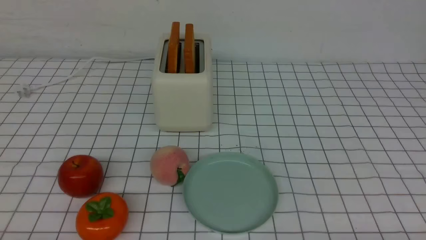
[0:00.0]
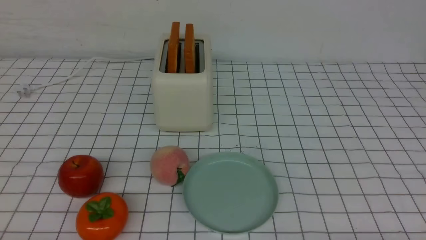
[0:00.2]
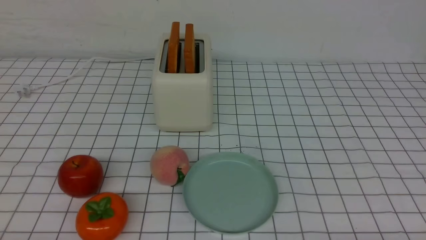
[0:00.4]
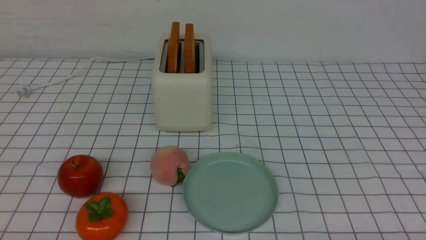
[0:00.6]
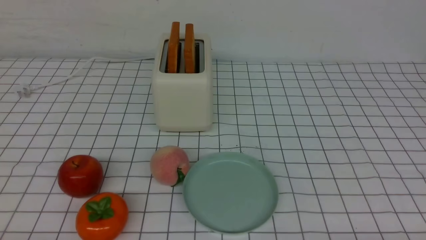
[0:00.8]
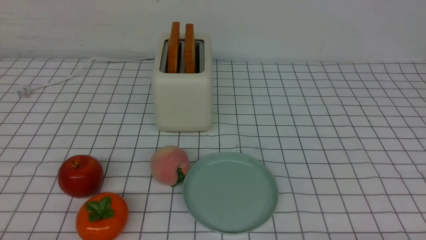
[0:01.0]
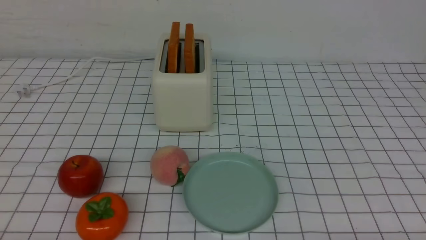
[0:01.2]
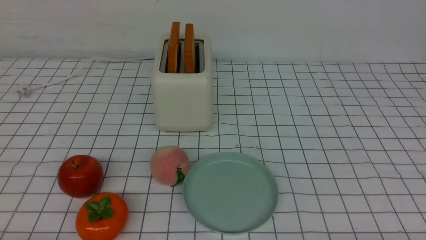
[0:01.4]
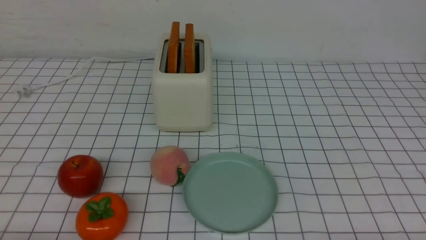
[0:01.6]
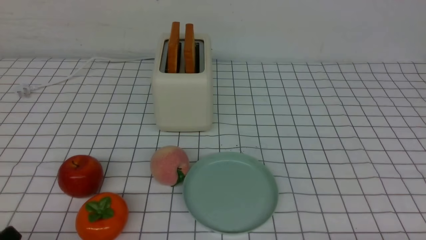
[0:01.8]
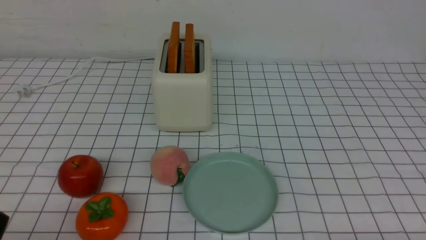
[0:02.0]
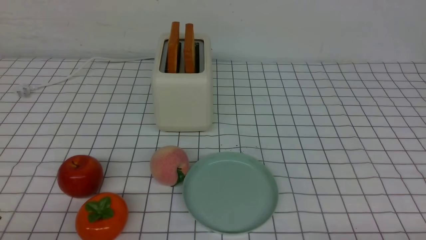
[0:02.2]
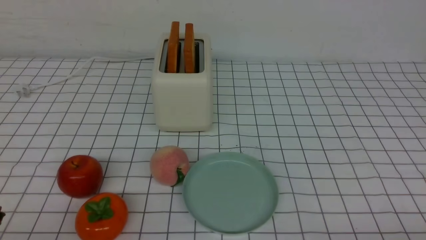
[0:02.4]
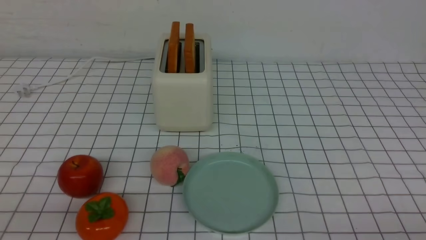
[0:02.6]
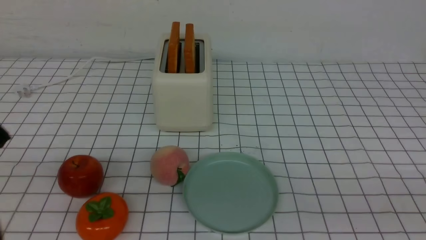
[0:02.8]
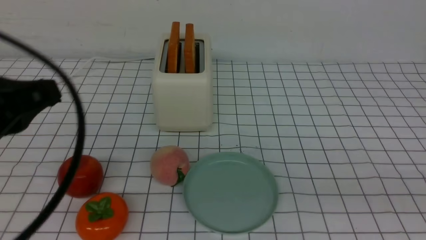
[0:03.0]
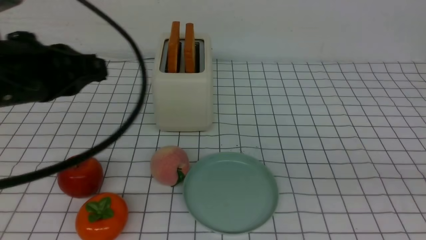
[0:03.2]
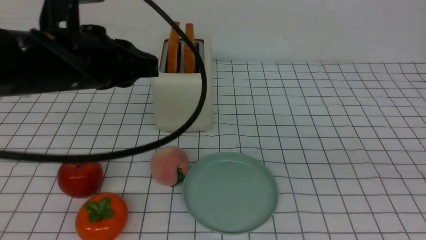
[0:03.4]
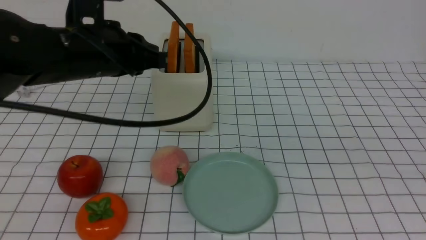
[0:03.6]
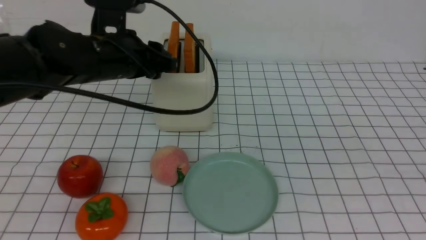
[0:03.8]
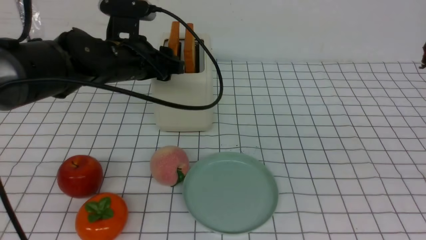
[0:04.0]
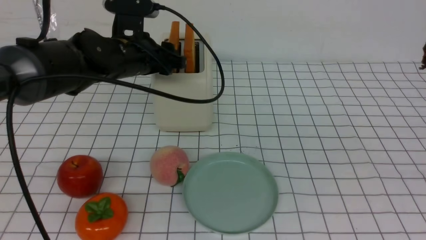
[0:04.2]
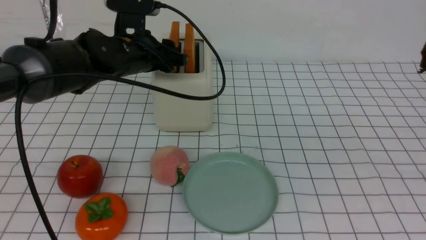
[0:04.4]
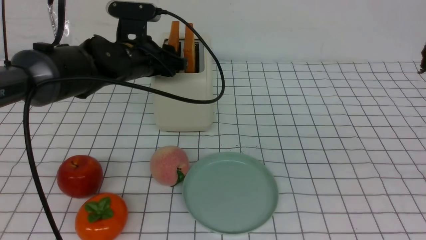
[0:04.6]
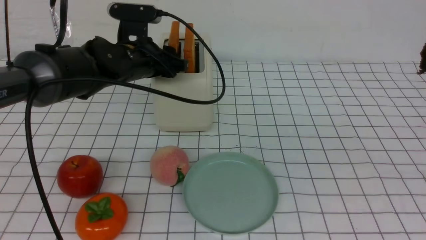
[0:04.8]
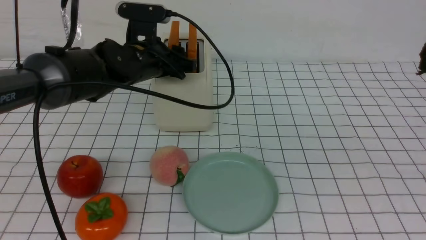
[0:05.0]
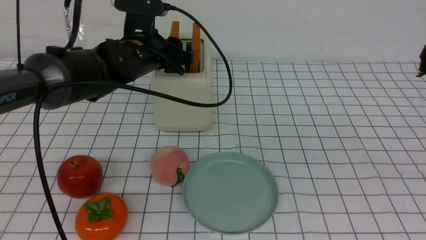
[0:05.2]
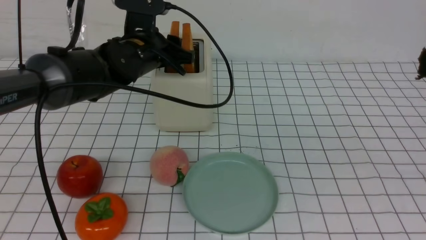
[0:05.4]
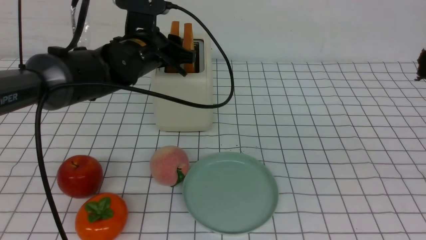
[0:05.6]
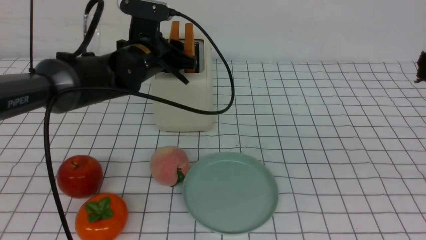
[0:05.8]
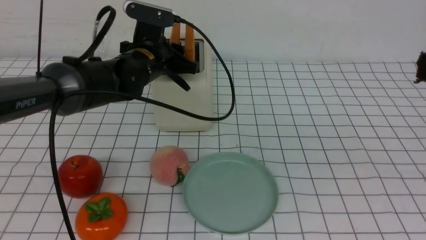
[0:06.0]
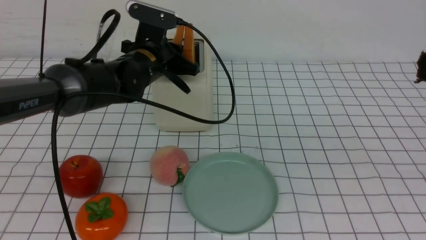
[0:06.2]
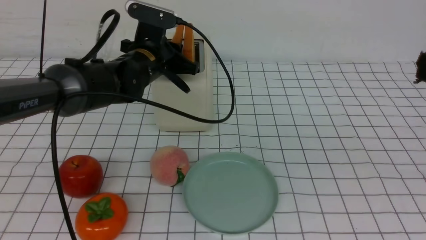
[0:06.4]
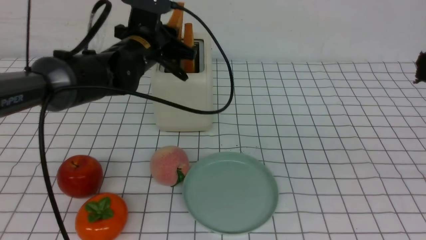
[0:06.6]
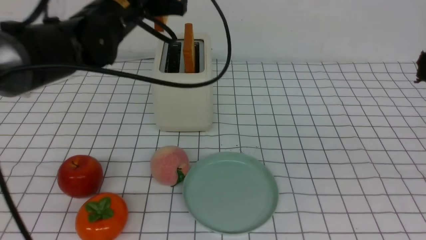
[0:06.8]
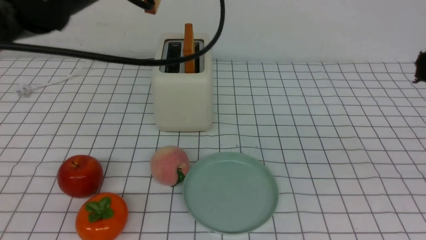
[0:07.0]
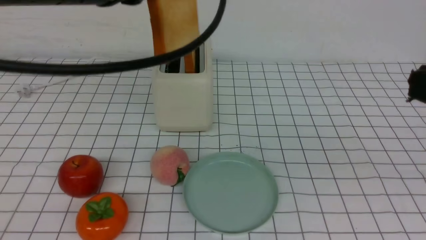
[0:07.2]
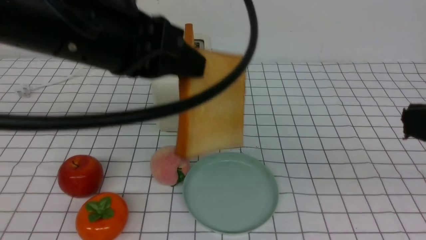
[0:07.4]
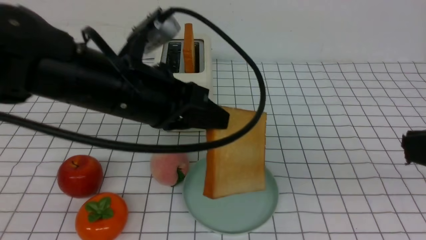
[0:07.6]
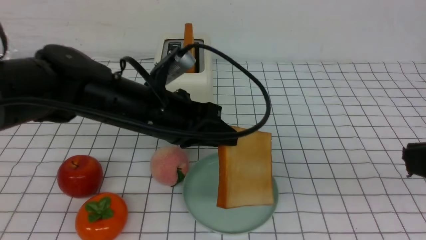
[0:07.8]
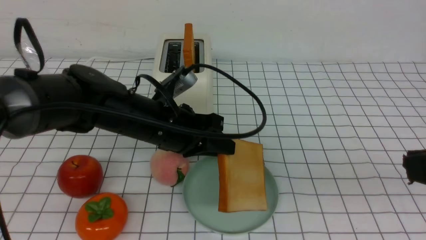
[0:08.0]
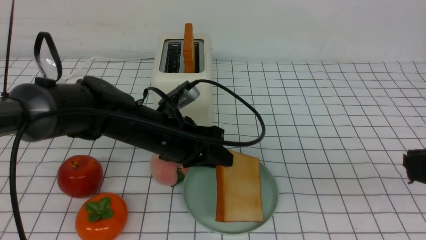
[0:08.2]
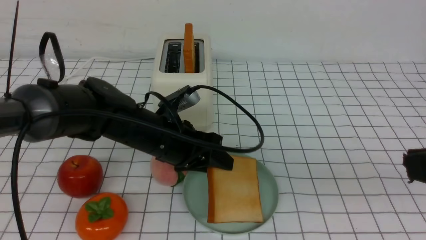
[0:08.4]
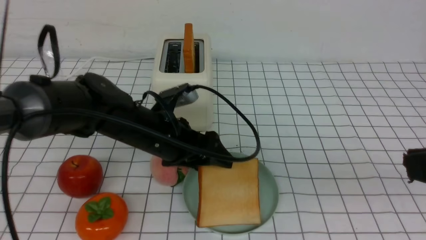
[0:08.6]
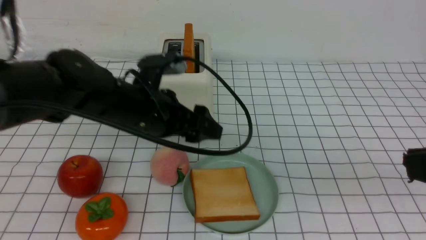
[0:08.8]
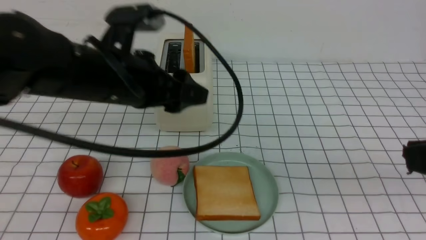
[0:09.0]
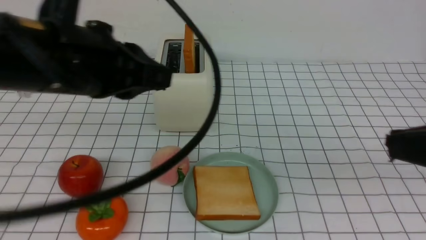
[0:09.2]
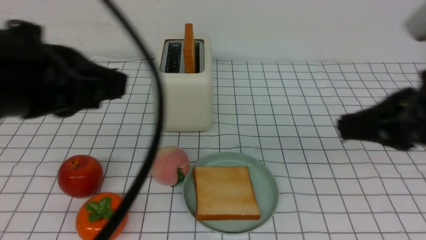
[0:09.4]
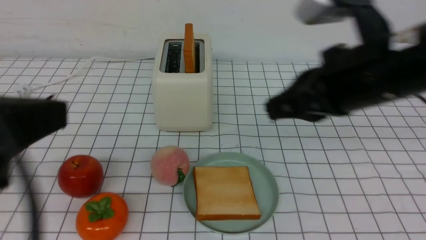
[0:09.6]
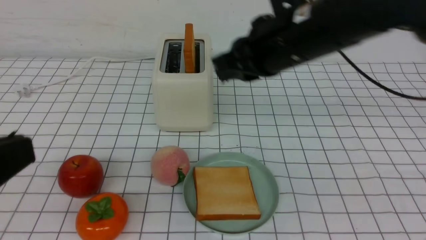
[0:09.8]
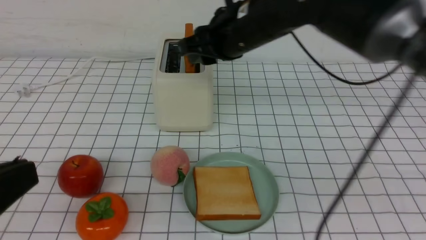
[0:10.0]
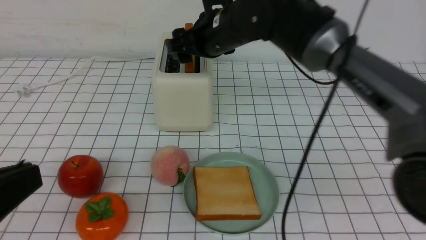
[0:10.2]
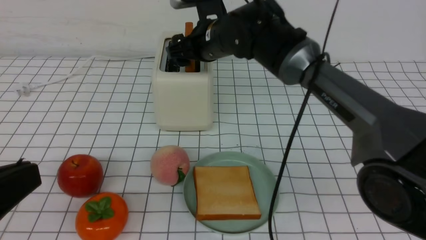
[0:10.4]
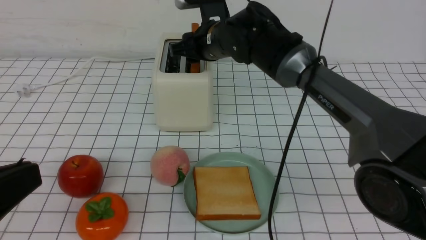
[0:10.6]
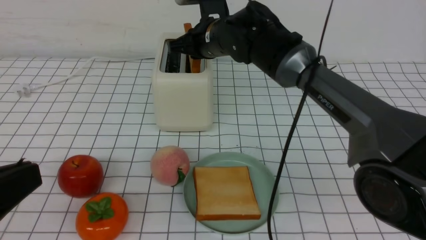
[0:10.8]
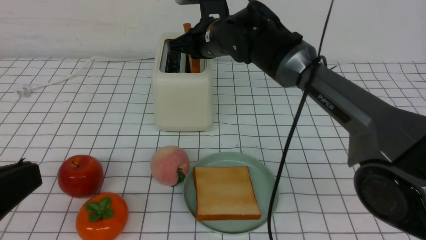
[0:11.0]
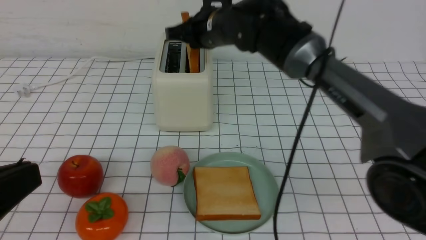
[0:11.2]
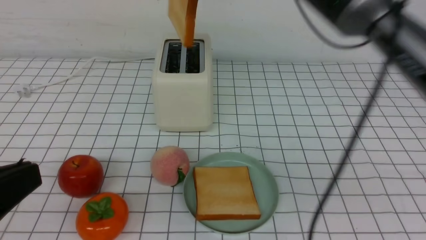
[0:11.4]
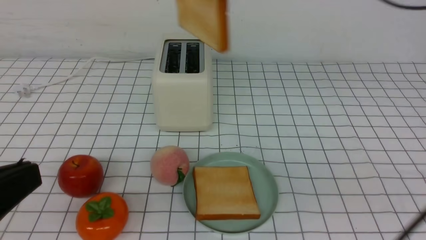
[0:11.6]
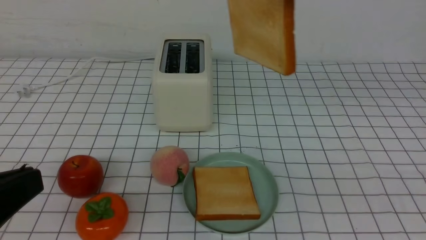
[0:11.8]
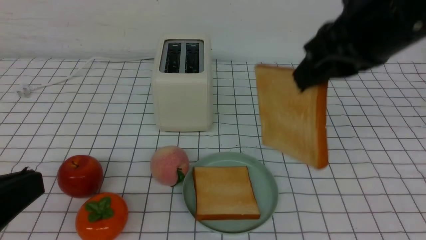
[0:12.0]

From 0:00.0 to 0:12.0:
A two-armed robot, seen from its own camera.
Task of the whole recording: take toasted bread from bread machine on white checkered table place on plate.
Step, from 0:00.0 to 0:06.6: use the left arm to take out a slice of bread.
Step, from 0:06.8 to 0:08.8: use the left arm to put a slice of bread into the empty plate.
Step, from 0:09.0 to 0:11.2: use the right arm to take out a slice of bread.
From 0:01.6 to 0:03.0: The left gripper goes roughly 20 cm upward and forward, and closes up.
From 0:03.0 to 0:04.4: The right gripper shifts about 5 cm upward; the left gripper shifts approximately 25 cm forward, and opens its fingers.
From 0:04.4 to 0:06.0: The left gripper closes.
From 0:06.0 to 0:07.6: The left gripper heads backward and upward, covering approximately 15 cm.
From 0:07.6 to 0:09.0: The left gripper reaches about 10 cm downward, then returns, and opens up.
From 0:09.0 to 0:10.4: The left gripper moves backward and to the left, roughly 25 cm, and closes; the right gripper moves forward and to the left, about 40 cm, and opens its fingers.
From 0:10.4 to 0:12.0: The right gripper is displaced backward, to the right and upward by approximately 25 cm, and closes its fingers.

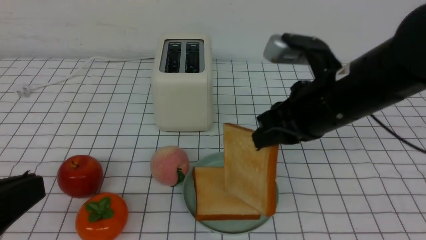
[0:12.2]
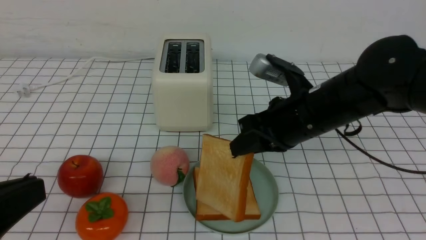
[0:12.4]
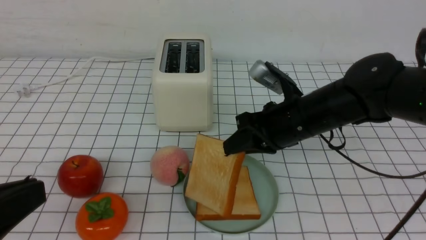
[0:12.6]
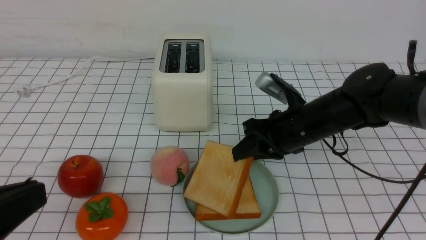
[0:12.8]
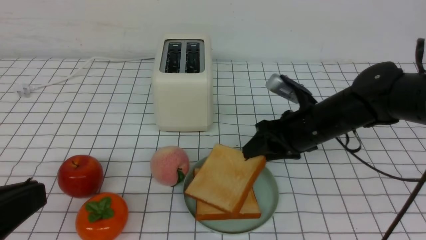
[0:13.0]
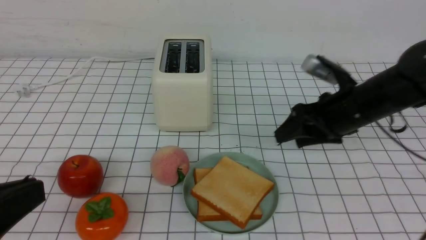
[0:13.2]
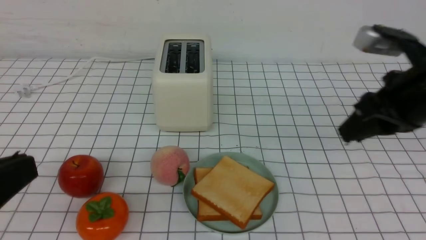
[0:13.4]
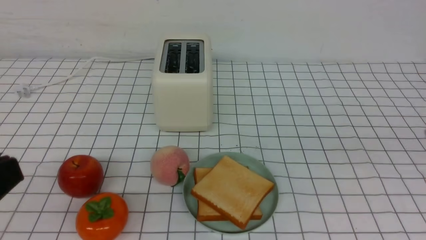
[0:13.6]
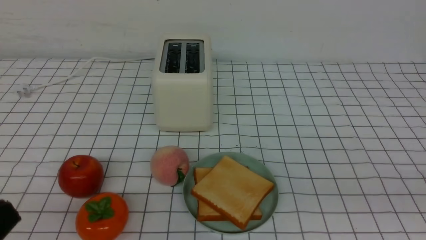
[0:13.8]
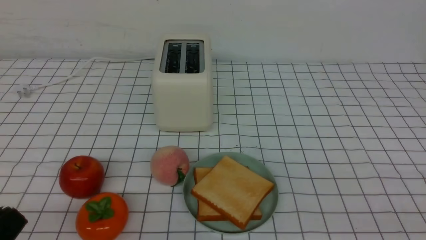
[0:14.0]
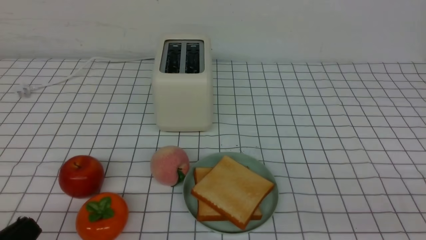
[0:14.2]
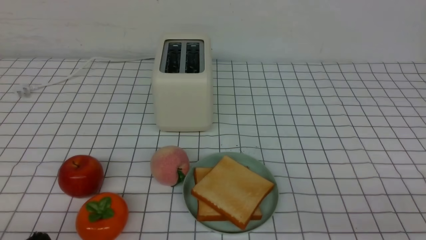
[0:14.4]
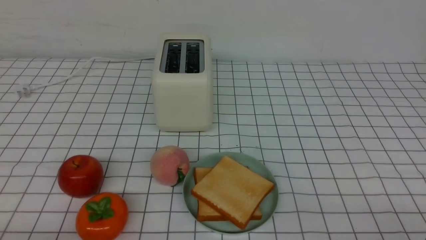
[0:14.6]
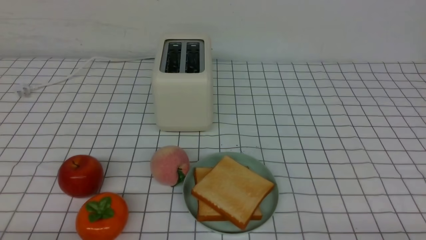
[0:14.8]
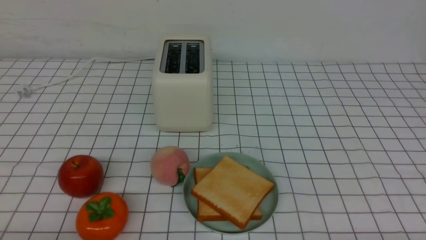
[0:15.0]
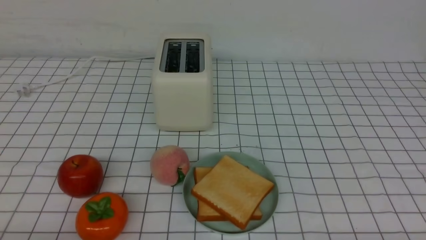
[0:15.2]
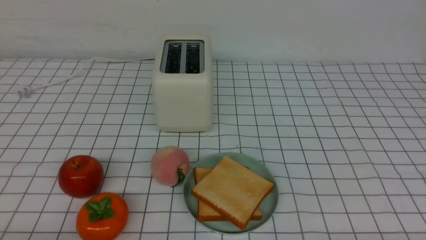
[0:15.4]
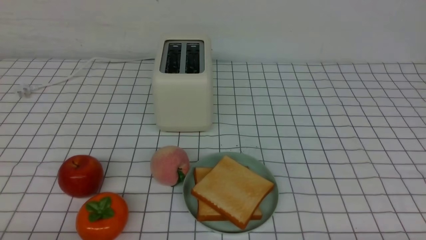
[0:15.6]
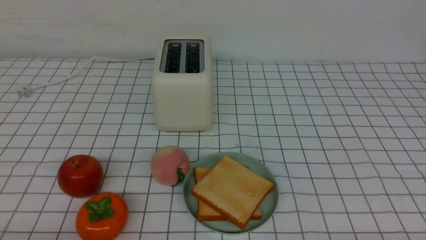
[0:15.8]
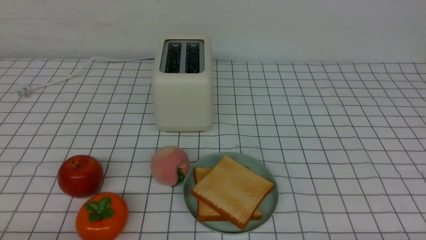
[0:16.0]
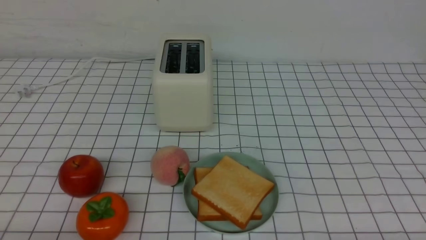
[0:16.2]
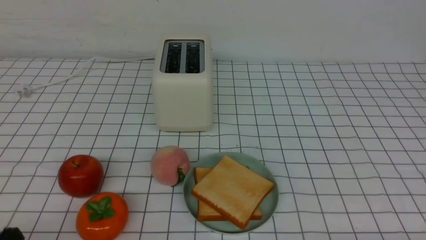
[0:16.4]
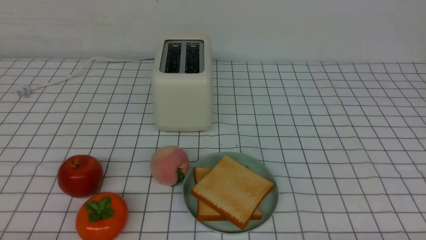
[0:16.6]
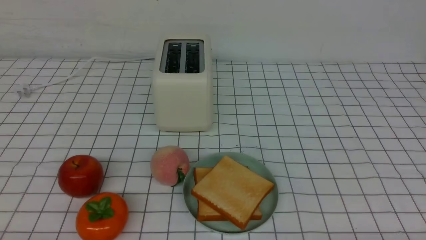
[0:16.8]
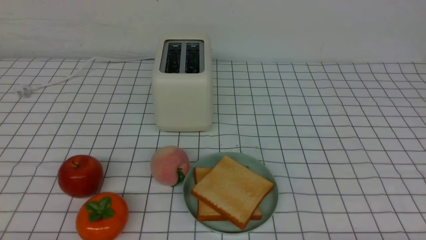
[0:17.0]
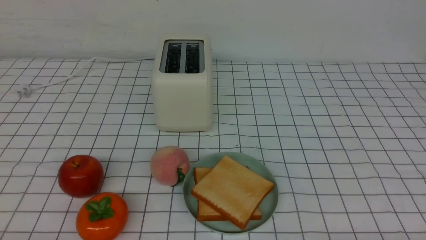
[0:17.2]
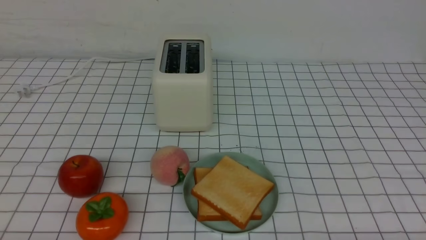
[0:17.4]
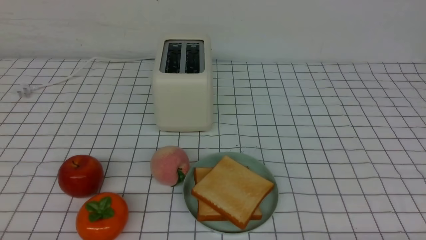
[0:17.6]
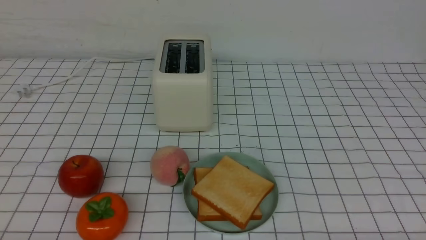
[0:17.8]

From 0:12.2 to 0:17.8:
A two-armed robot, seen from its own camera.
Task of the whole recording: take toasted bread from bread machine on white checkered table place on plate.
Step, from 0:12.2 to 0:13.2: use the right arm to put a slice of bread into the plate.
From 0:12.2 to 0:13.6: The right gripper goes approximately 20 cm to the right, backward and upward, and opens and closes again.
From 0:13.6 to 0:15.0: The right gripper goes some 25 cm downward and backward. The left gripper travels downward by roughly 15 cm.
